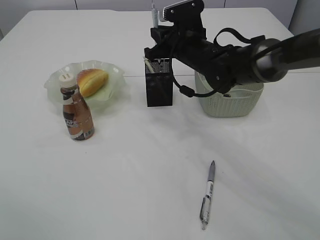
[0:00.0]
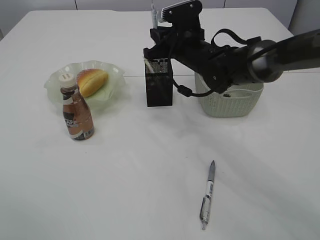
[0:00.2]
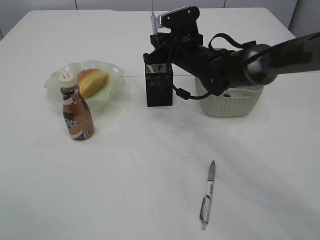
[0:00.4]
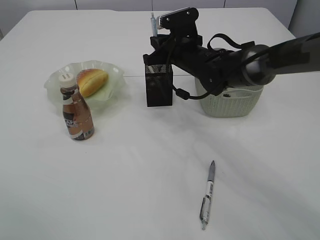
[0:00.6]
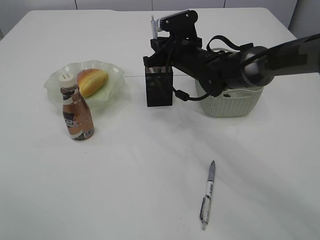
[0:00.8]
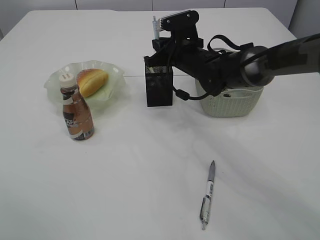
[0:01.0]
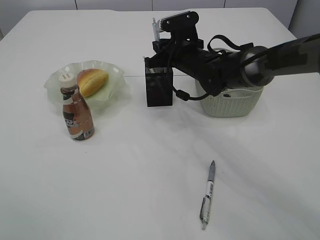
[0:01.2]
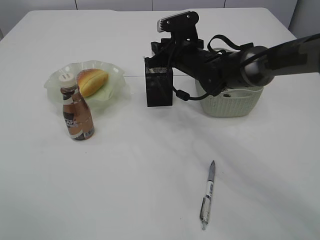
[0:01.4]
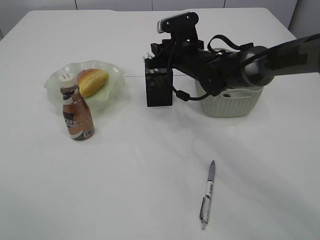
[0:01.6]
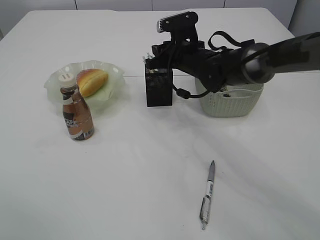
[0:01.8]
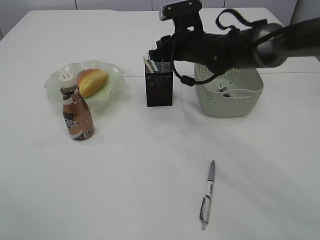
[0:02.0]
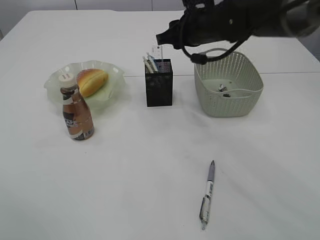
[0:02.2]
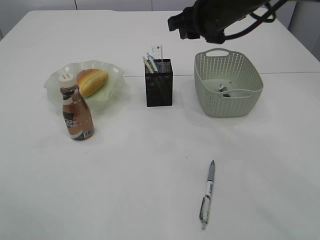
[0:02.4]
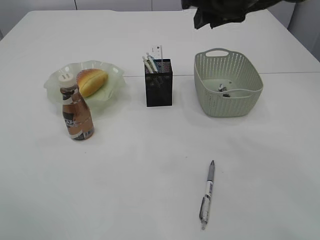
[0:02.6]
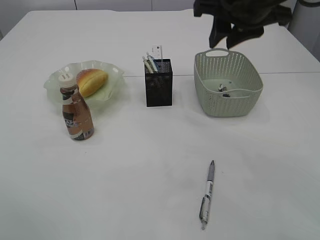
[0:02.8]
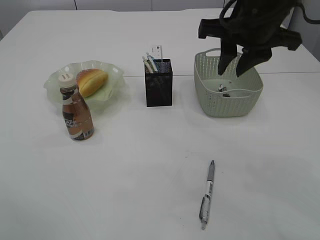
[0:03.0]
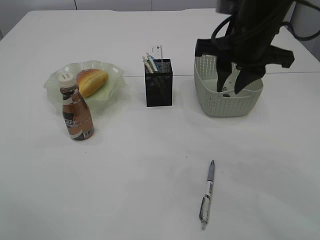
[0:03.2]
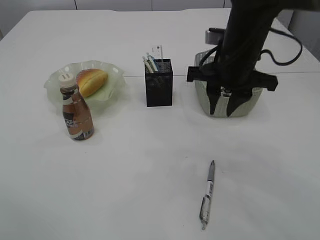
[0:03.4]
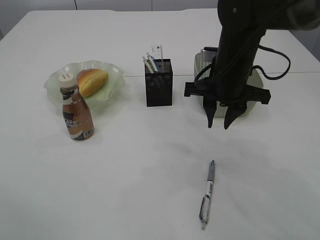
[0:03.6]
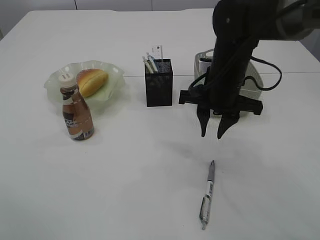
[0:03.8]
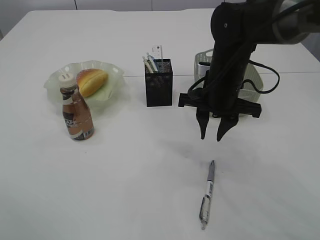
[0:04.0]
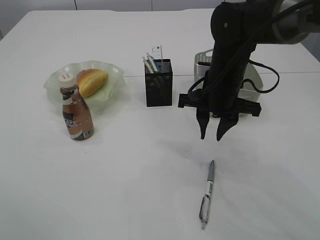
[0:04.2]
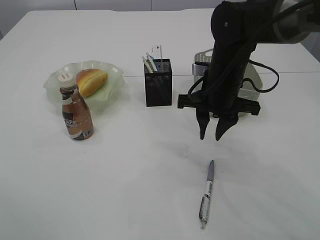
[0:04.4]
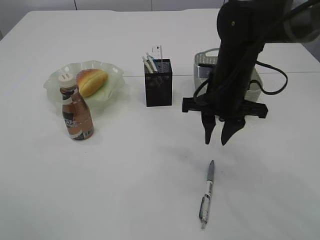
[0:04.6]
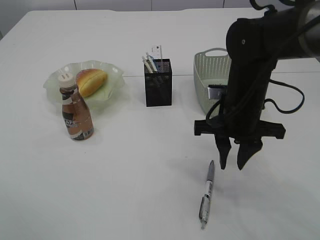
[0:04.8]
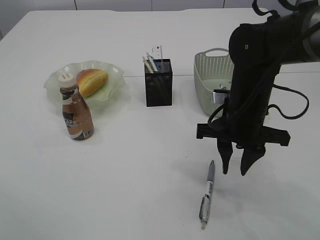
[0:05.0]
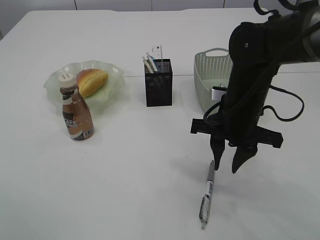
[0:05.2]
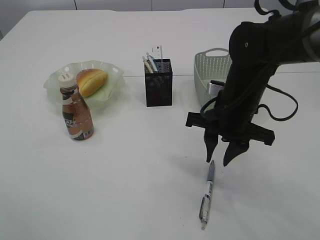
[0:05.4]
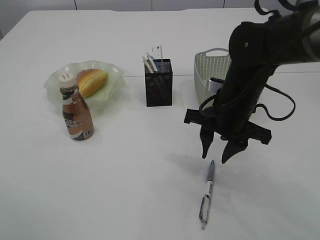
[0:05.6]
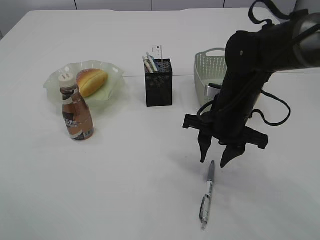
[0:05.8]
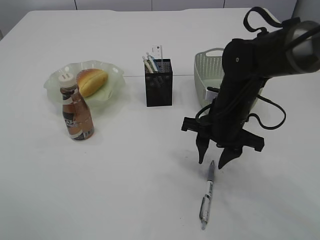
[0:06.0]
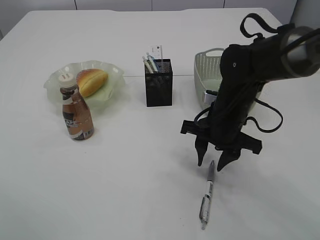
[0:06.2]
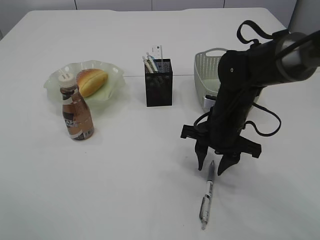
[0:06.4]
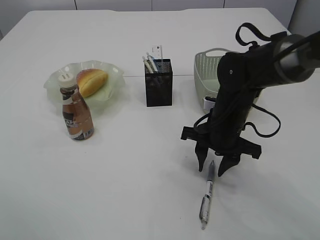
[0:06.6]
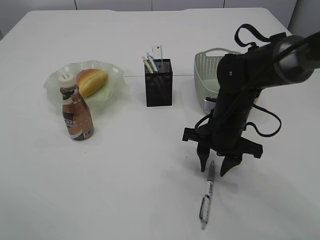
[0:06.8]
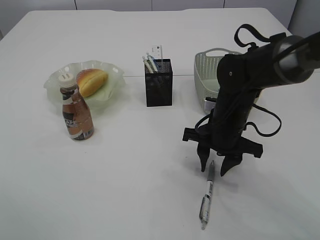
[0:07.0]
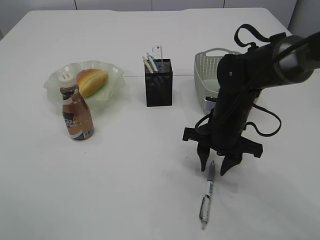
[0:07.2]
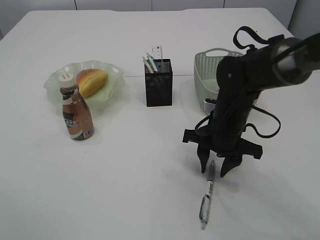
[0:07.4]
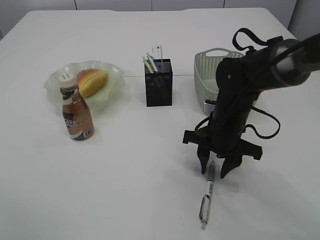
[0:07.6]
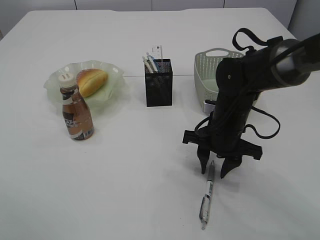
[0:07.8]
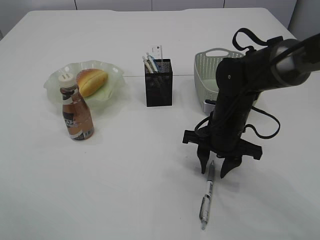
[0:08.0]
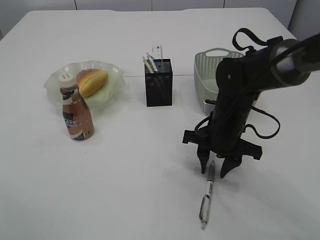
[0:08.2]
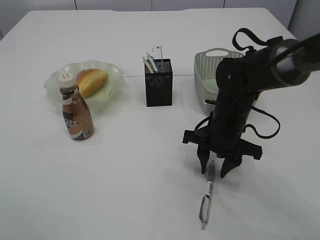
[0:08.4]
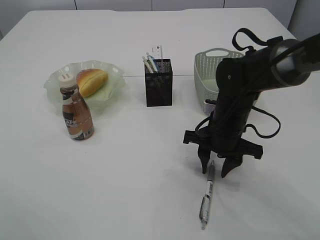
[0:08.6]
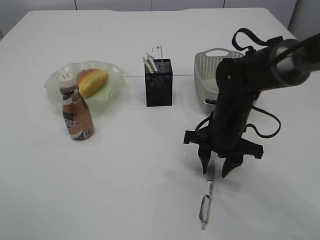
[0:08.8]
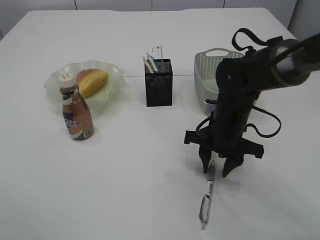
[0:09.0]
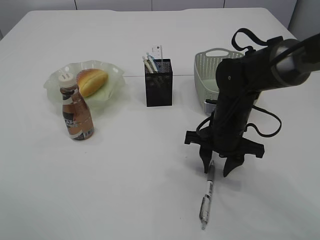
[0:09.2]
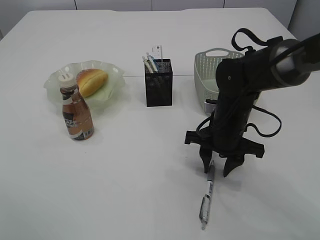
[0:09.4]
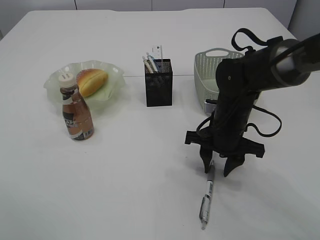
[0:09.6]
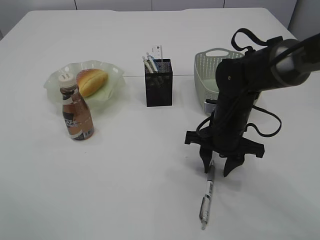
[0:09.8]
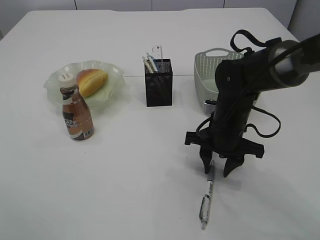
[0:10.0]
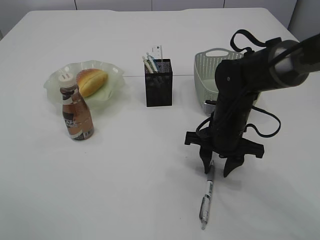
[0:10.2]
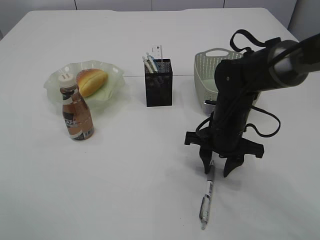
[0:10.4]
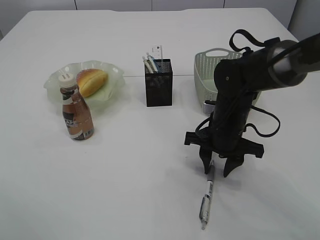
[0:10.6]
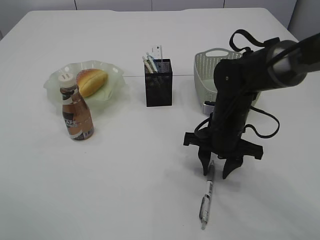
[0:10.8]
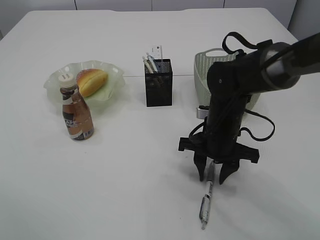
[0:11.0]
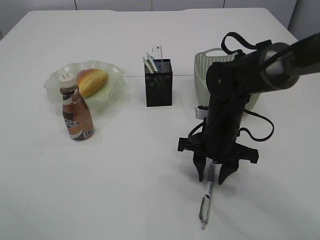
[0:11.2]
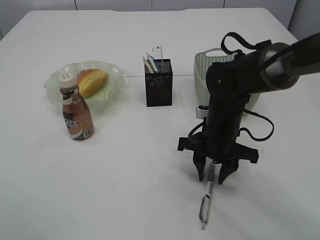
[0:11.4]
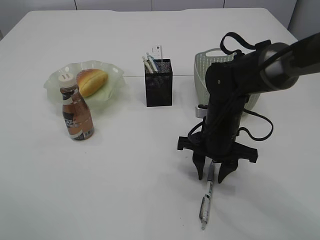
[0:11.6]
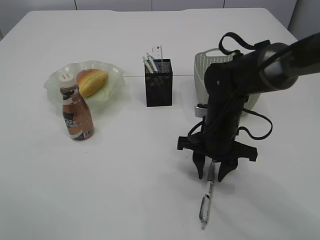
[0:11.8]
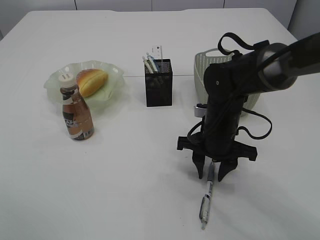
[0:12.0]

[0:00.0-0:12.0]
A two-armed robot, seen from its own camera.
Step, 0:00.0 to 0:02.2: Place the pen into the pen holder.
0:00.0 to 0:01.6: The right gripper opens its fingers.
0:01.6 to 0:03.0: The right gripper moves upward, backward and to the right, approximately 20 cm.
0:03.0 to 0:04.4: The right gripper goes about 15 cm downward.
0:04.4 to 0:06.0: The right gripper changes place by about 5 cm.
0:06.0 to 0:07.6: The grippers move only a little.
0:07.6 to 0:10.4: The two grippers keep their place.
0:10.4 to 0:12.0: There are only small adjustments of the grippers.

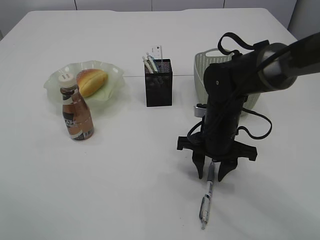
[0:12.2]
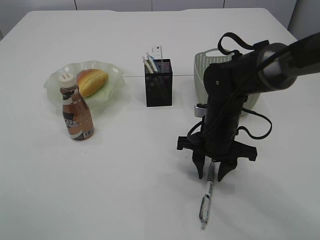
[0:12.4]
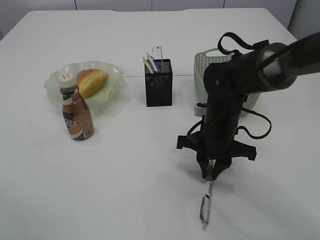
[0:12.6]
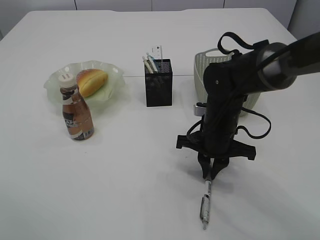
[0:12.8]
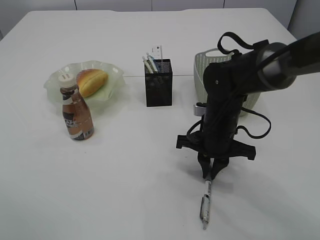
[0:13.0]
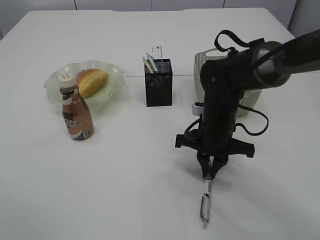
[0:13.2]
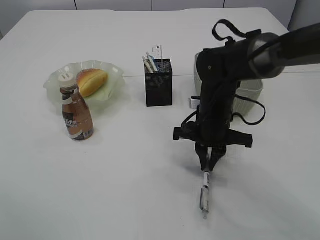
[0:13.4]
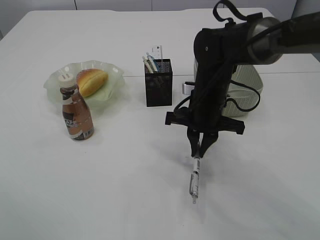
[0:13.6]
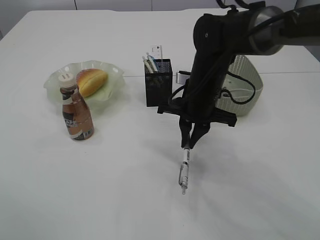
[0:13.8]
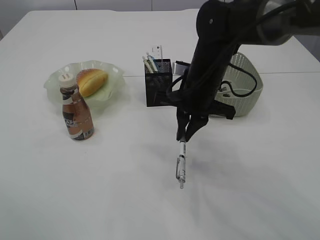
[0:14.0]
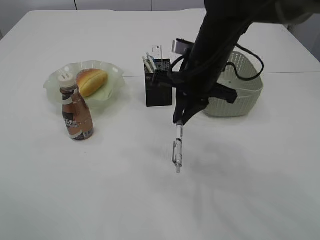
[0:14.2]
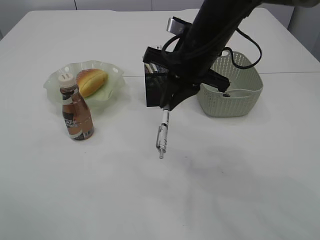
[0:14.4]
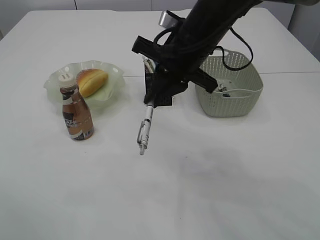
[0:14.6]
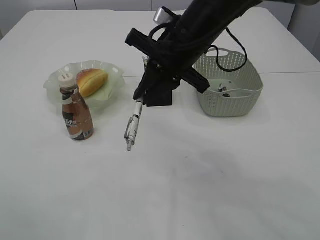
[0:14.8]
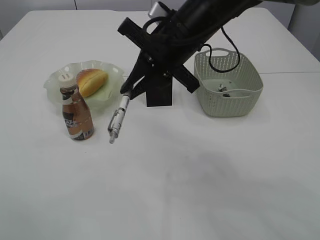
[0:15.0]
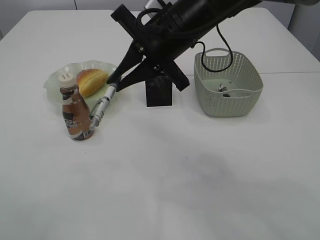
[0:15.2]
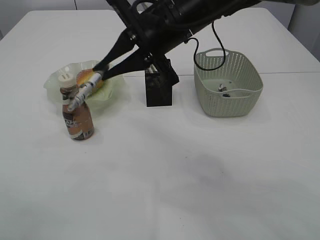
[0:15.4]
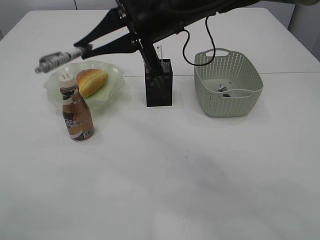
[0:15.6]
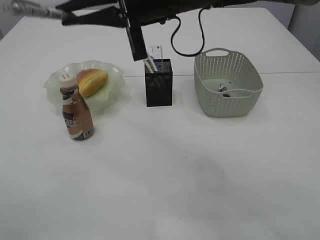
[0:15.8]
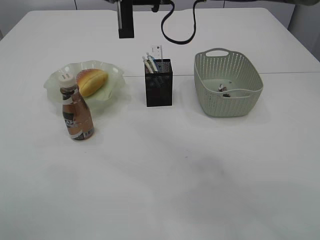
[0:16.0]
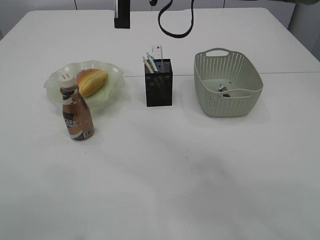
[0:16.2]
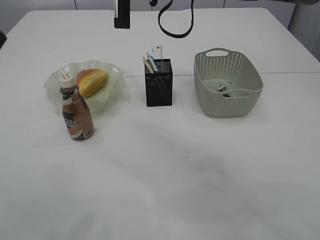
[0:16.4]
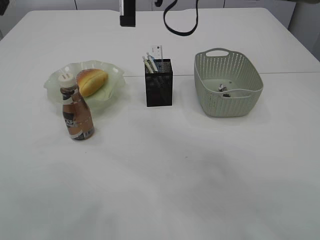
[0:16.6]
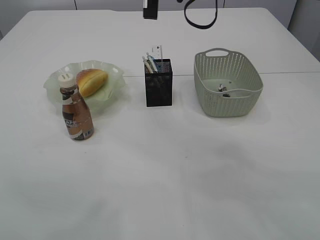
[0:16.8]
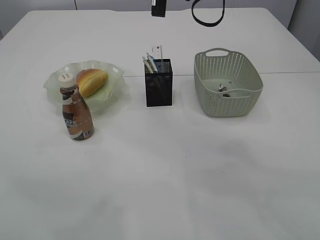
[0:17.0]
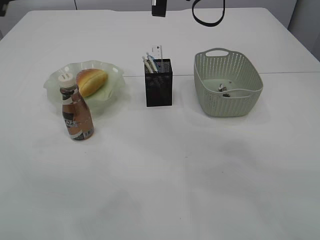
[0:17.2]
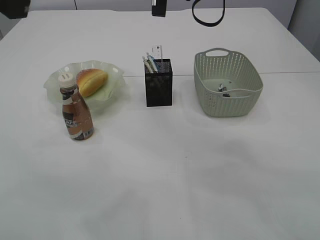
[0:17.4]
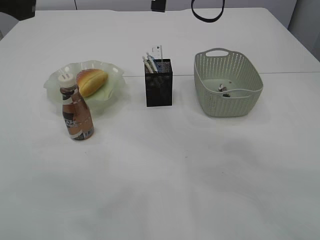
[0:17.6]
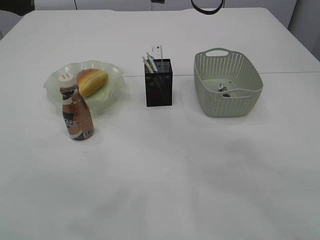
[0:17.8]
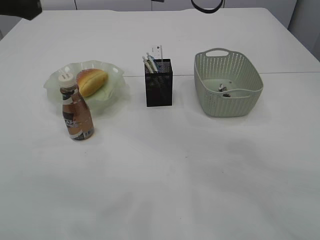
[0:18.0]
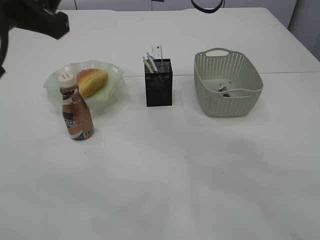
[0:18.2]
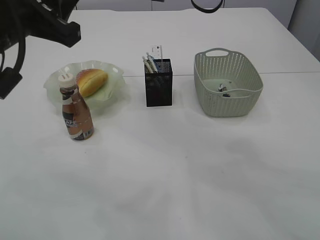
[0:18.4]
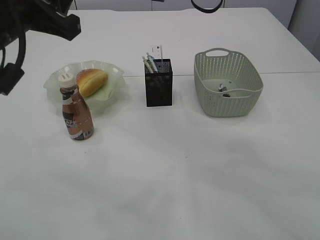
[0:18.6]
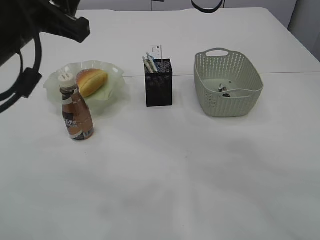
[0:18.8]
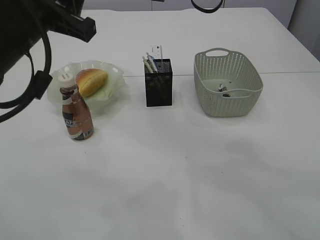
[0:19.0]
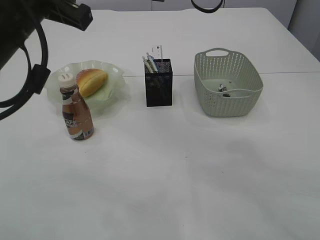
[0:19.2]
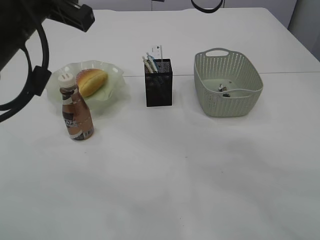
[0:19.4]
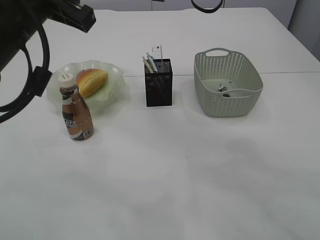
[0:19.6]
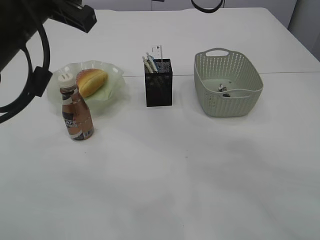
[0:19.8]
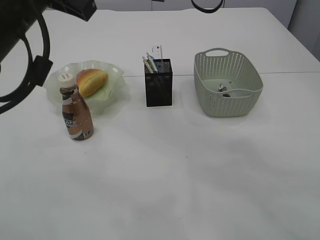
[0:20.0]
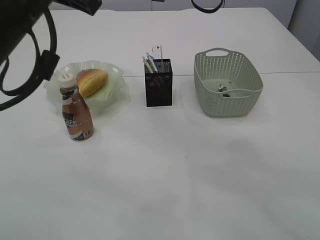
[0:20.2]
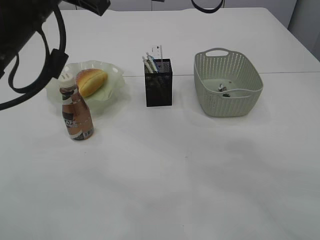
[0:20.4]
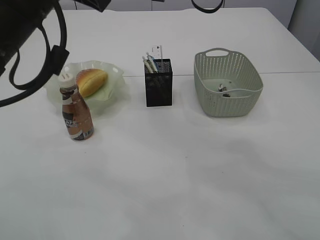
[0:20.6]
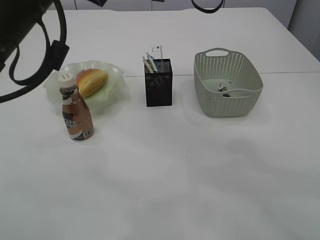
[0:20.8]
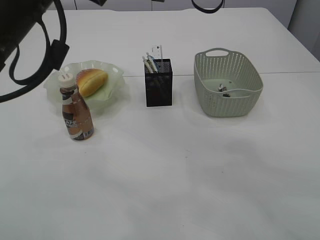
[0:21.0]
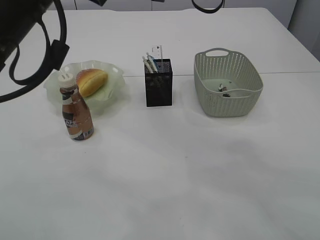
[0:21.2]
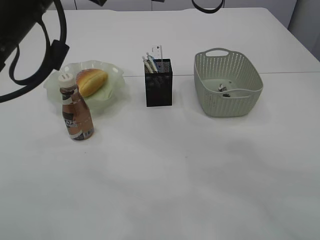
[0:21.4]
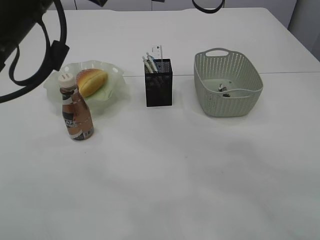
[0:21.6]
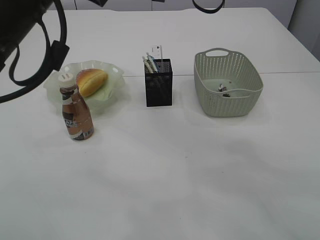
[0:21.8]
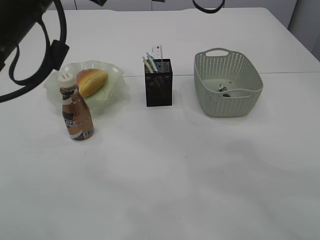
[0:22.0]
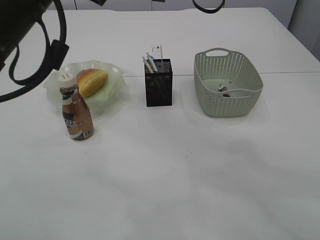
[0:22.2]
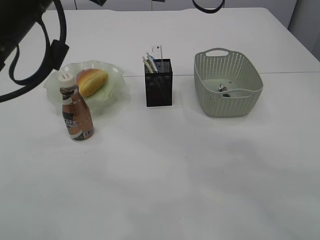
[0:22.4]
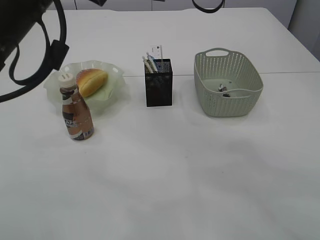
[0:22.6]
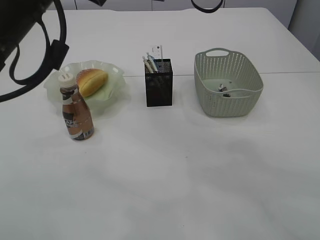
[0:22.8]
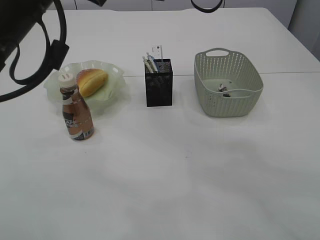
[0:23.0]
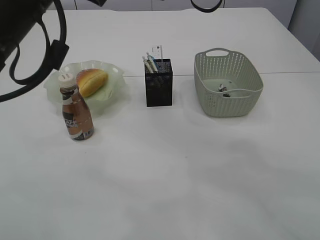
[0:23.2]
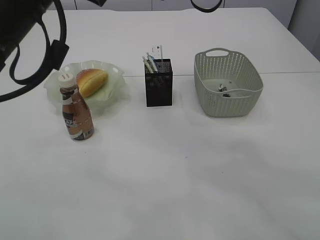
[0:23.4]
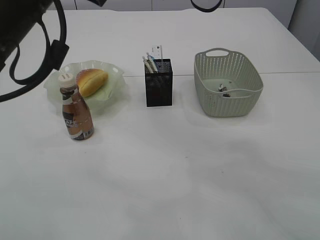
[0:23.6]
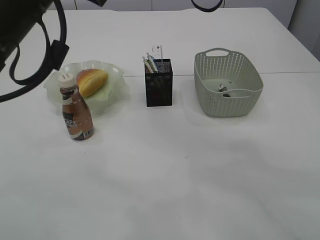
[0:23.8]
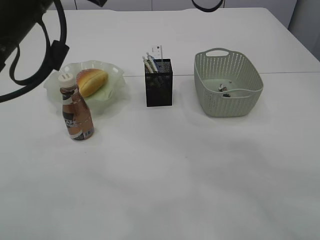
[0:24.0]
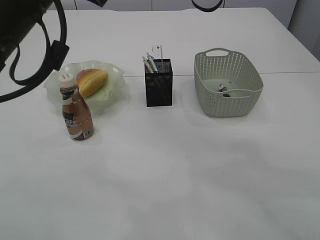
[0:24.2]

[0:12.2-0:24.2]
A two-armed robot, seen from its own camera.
0:12.2 to 0:13.8: The right gripper heads upward, covering some 5 cm, and closes up.
0:13.8 to 0:15.2: The right gripper shifts roughly 10 cm upward.
0:15.2 to 0:16.6: The right gripper travels upward by about 5 cm.
0:16.6 to 0:18.2: The left gripper goes approximately 10 cm downward and to the right, while the right gripper shifts by approximately 5 cm.
0:18.2 to 0:19.8: The grippers move only a little.
0:19.8 to 0:21.2: The grippers move only a little.
